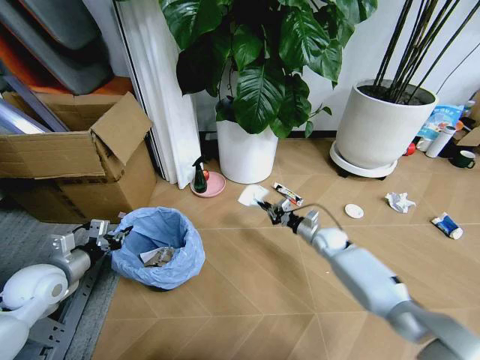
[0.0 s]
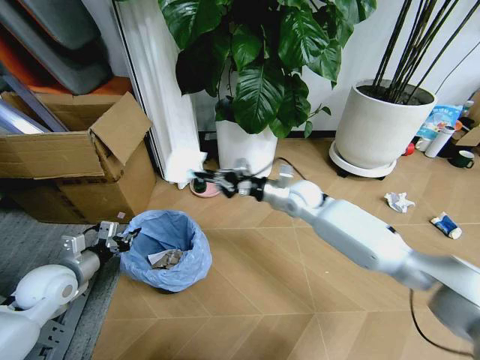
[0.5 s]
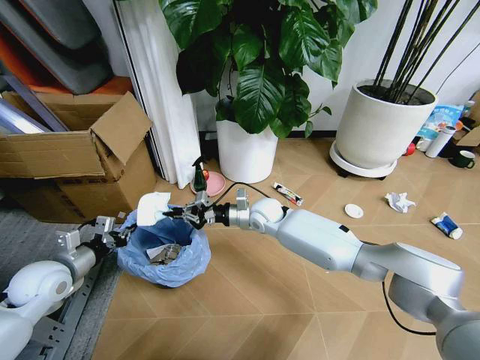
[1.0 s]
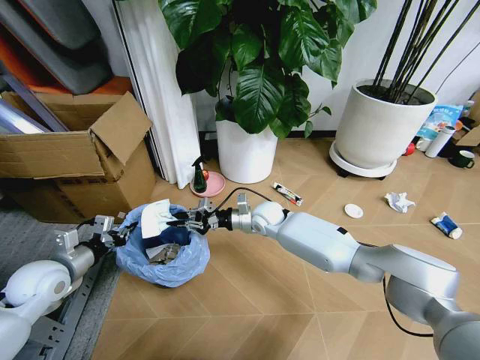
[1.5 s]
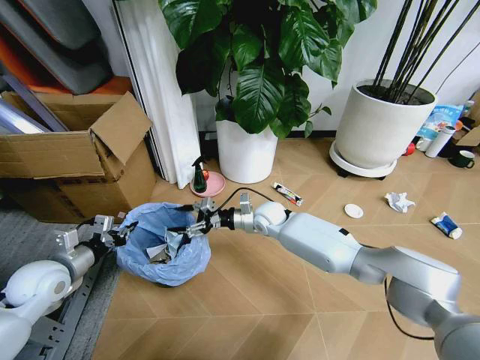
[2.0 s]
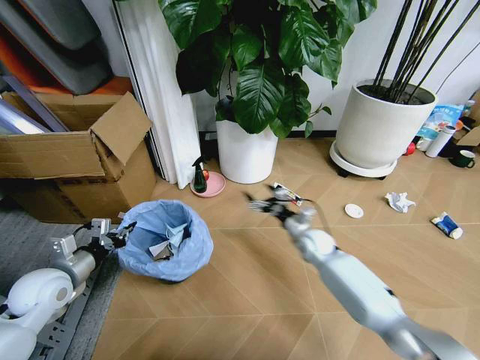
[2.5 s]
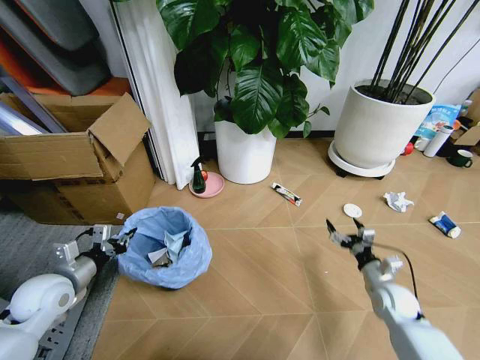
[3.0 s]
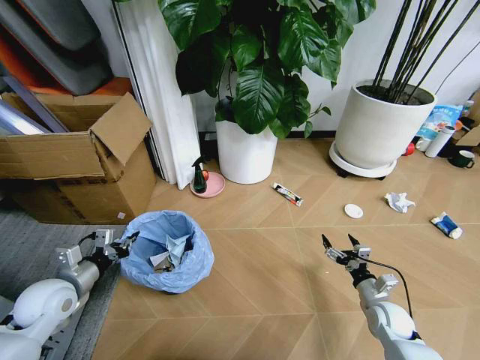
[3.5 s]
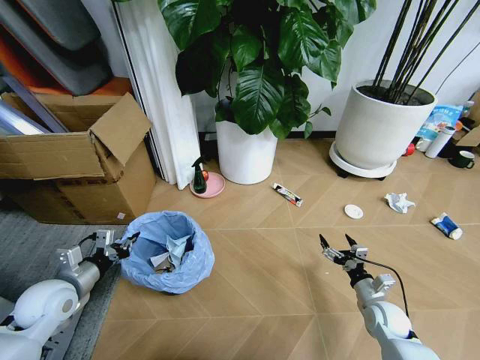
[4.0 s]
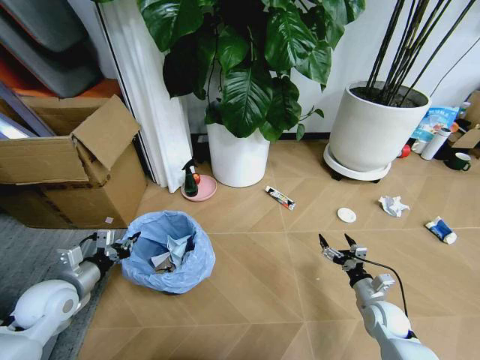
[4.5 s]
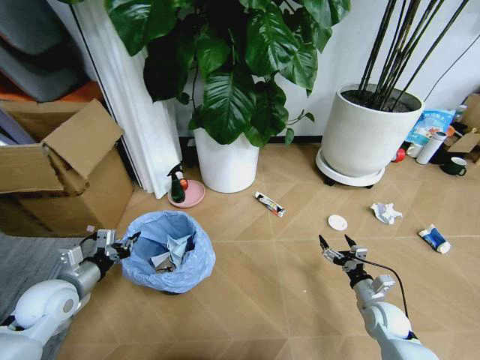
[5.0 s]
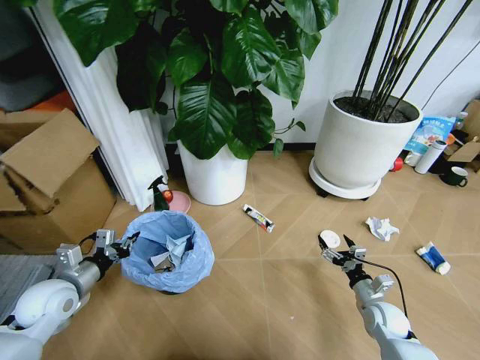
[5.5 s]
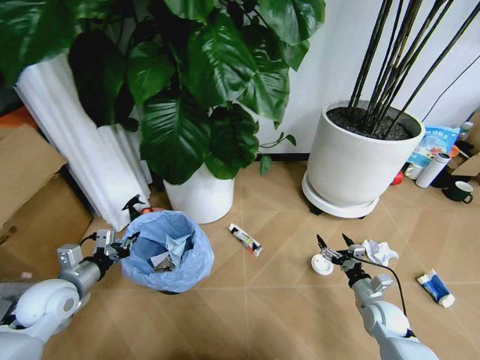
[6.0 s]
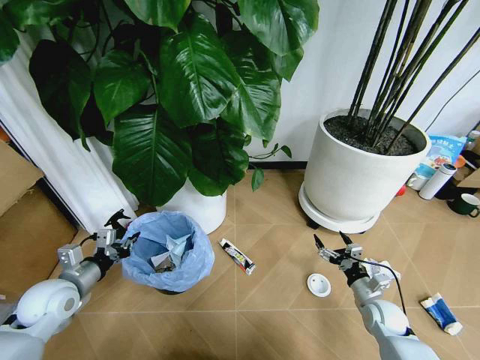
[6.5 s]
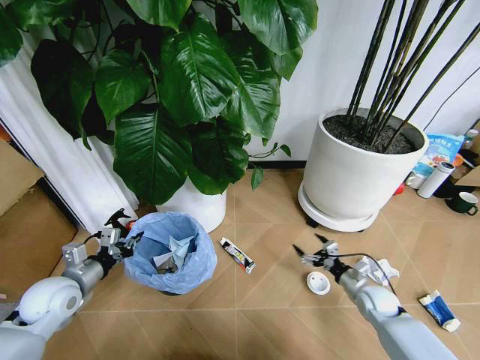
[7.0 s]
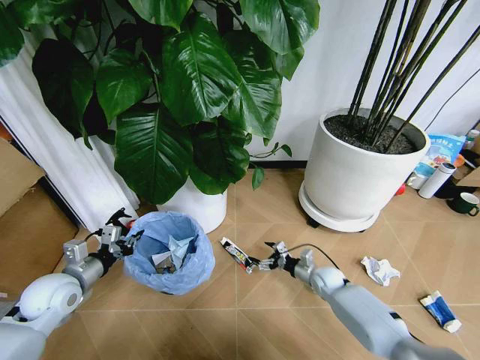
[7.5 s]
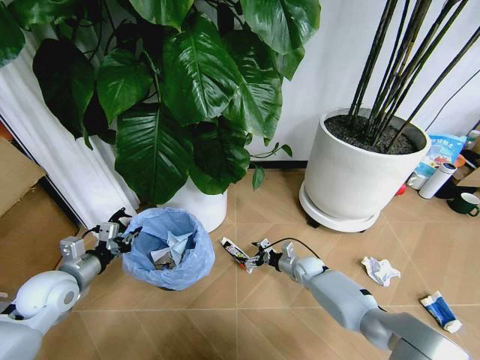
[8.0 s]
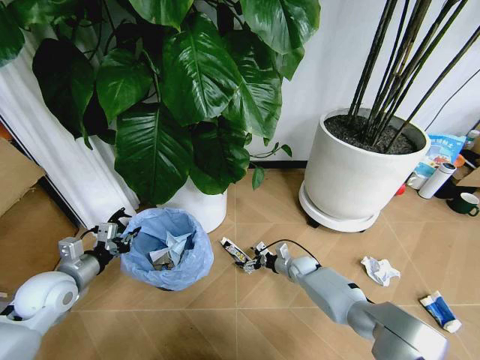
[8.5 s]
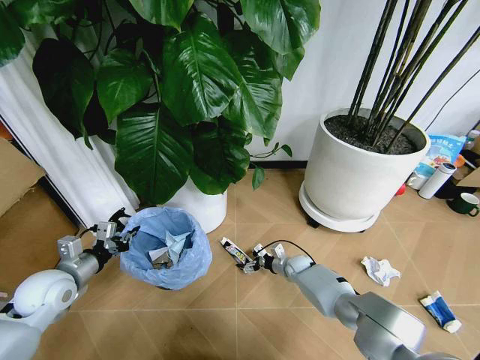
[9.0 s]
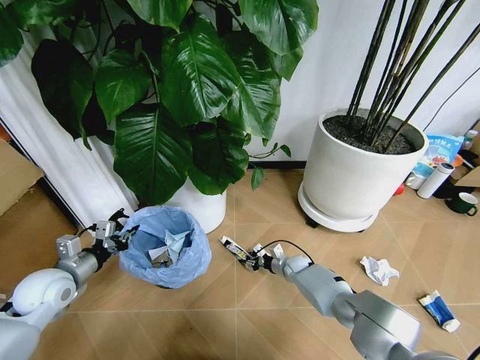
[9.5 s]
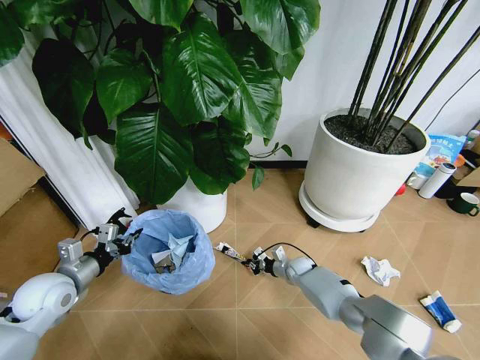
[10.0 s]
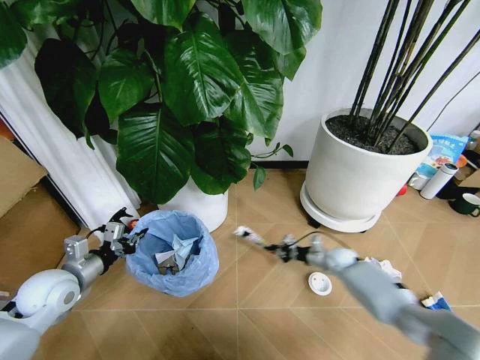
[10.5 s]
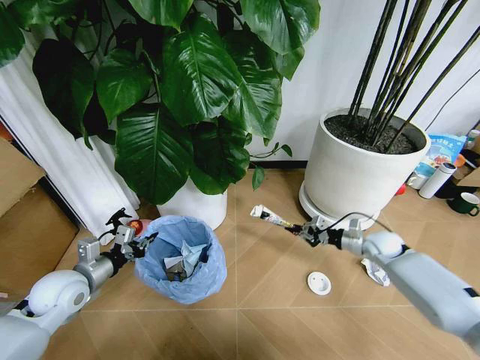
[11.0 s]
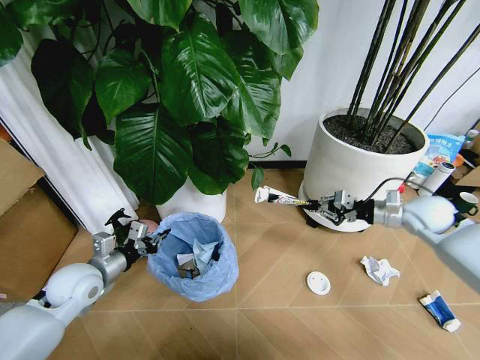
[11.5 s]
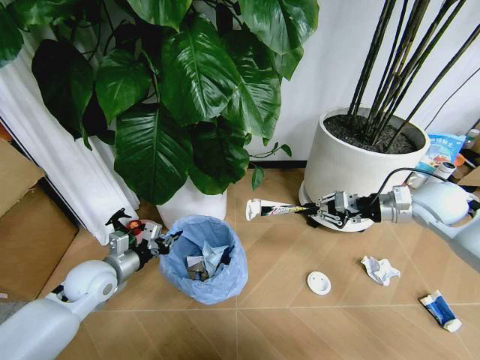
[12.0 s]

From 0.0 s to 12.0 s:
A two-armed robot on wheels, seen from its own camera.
Task of the whole recording: Pick up the trash bin and place the garbage on the floor into it.
From 0.0 s to 2.0 s: The right gripper goes about 20 cm to the left and upward, and opens.
From 2.0 s to 4.0 s: The right gripper heads to the right, backward and downward, covering about 40 cm.
From 6.0 s to 8.0 s: The right gripper goes approximately 20 cm forward and to the left.
From 8.0 s to 10.0 s: The right gripper closes.
From 10.0 s to 12.0 s: The right gripper heads upward and to the right, covering approximately 40 cm. Meanwhile the left gripper heads to the right, covering about 5 cm.

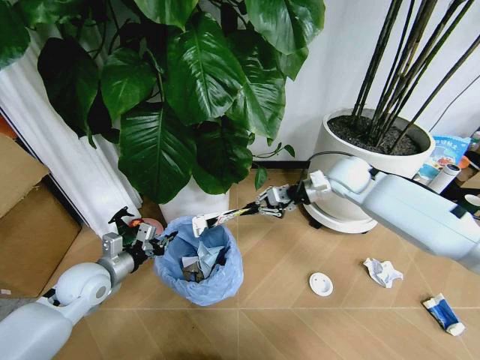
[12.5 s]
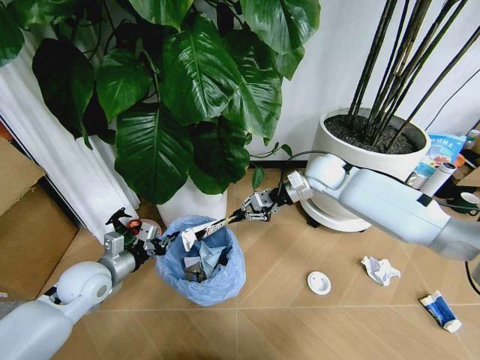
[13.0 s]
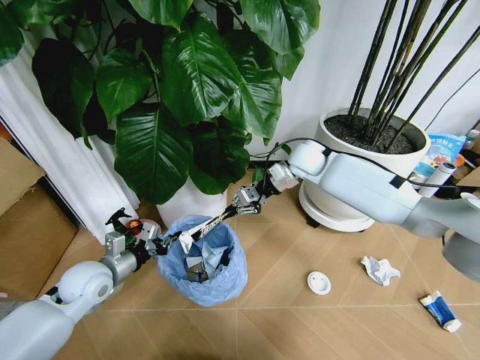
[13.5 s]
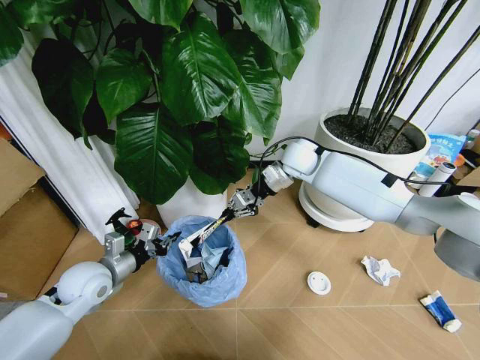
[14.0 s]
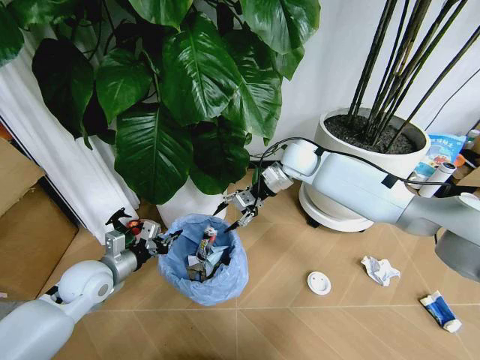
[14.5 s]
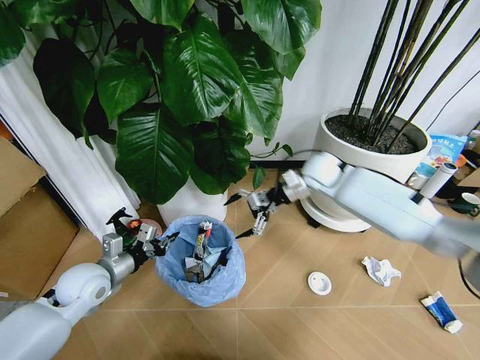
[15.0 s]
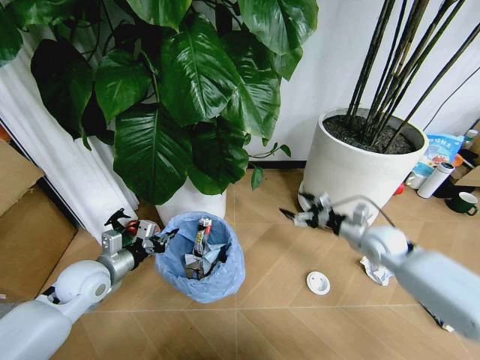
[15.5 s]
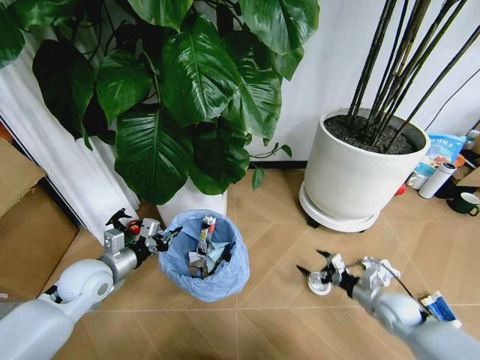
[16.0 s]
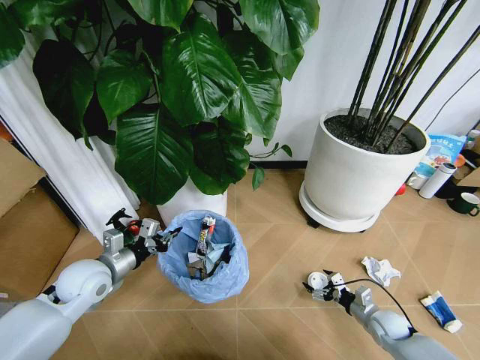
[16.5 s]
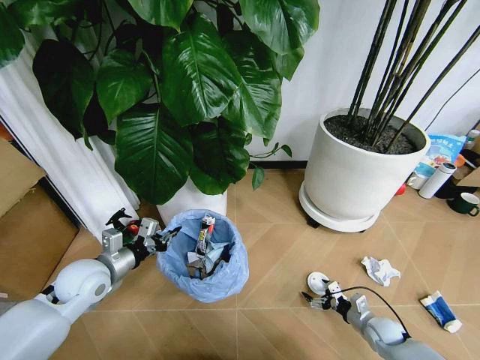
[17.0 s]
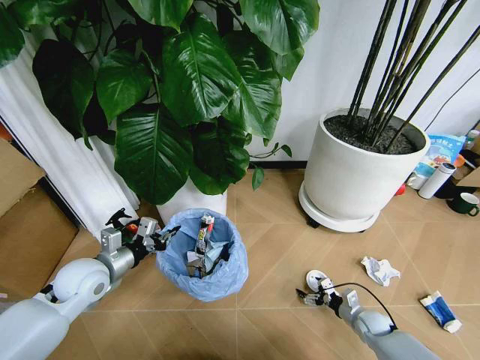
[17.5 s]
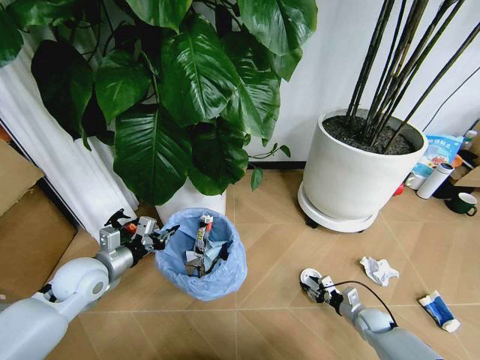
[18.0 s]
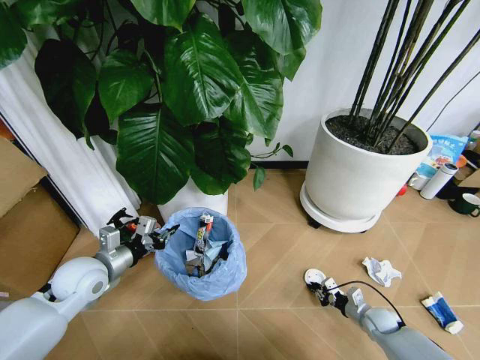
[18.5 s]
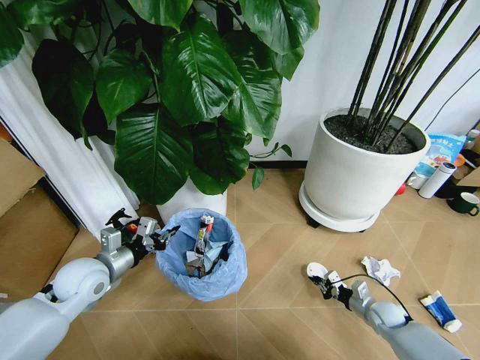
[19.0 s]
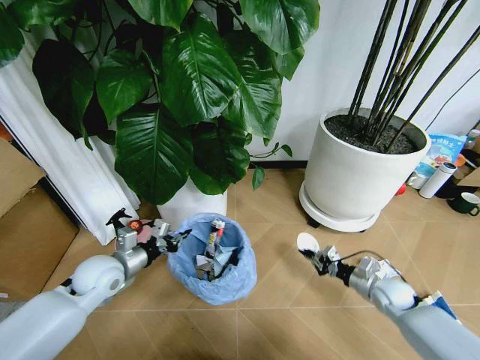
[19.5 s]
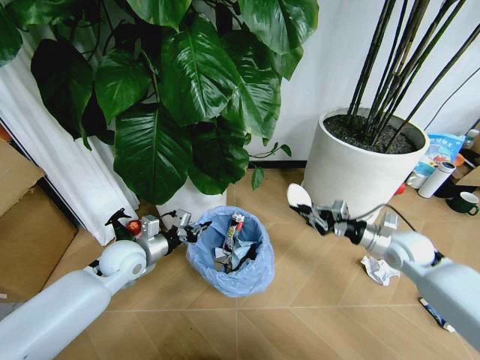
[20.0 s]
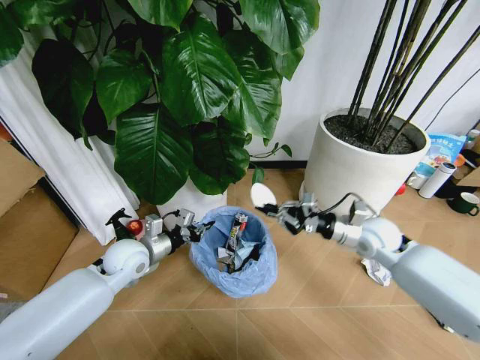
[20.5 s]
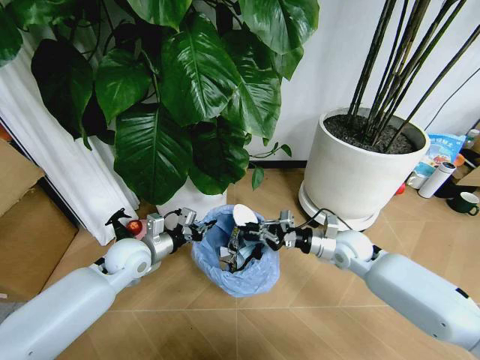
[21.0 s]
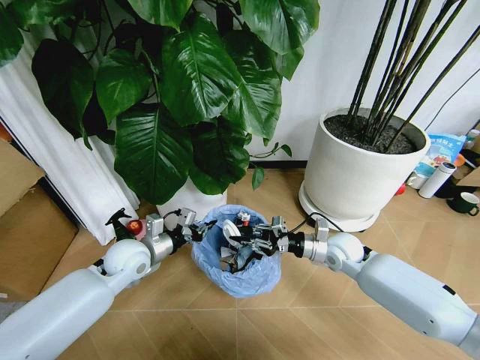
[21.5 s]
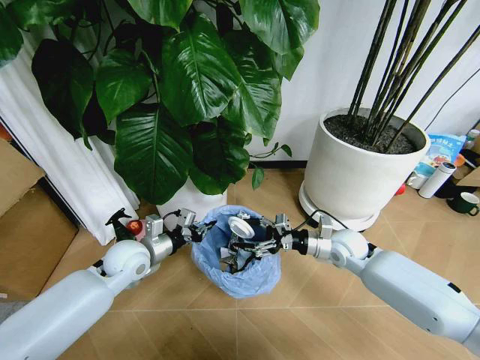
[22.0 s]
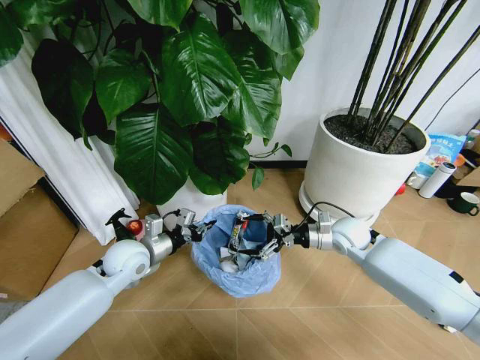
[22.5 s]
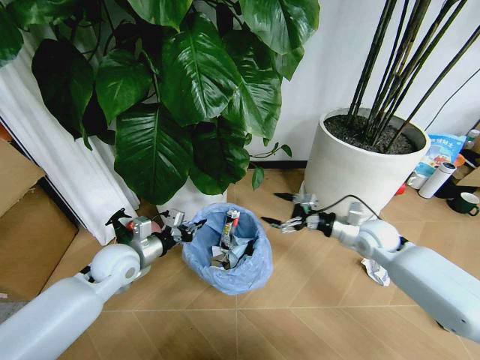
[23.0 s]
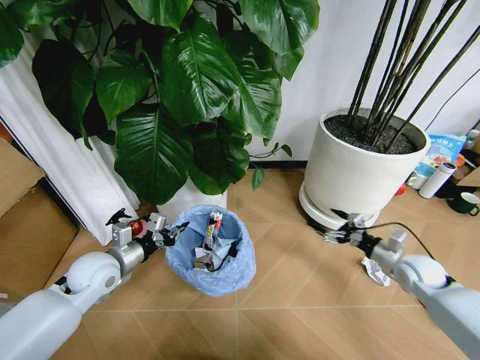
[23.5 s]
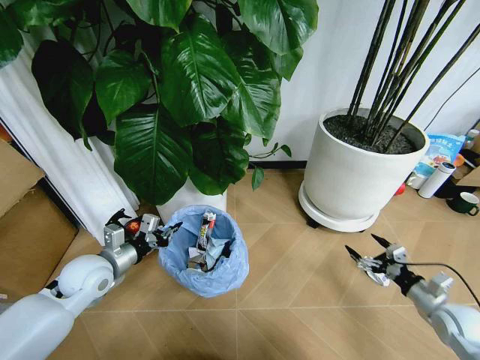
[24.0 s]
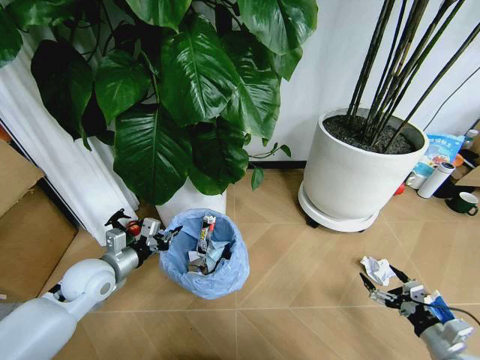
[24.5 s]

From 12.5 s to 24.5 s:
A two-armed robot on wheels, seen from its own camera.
Task of the whole recording: Pick up the trash bin and place the garbage on the floor into it.
From 12.5 s to 14.5 s: The right gripper shifts some 10 cm to the left and forward, and opens its fingers.
From 14.5 s to 16.5 s: The right gripper travels downward, backward and to the right by approximately 50 cm, and opens its fingers.
From 16.5 s to 18.5 s: The right gripper closes its fingers.
From 18.5 s to 20.5 s: The left gripper is displaced to the right and forward by approximately 10 cm; the right gripper is displaced upward by some 30 cm.
From 20.5 s to 22.5 s: The right gripper moves approximately 5 cm, and opens its fingers.
From 22.5 s to 24.5 s: The right gripper goes approximately 35 cm backward, to the right and downward, while the left gripper travels to the left by roughly 5 cm.

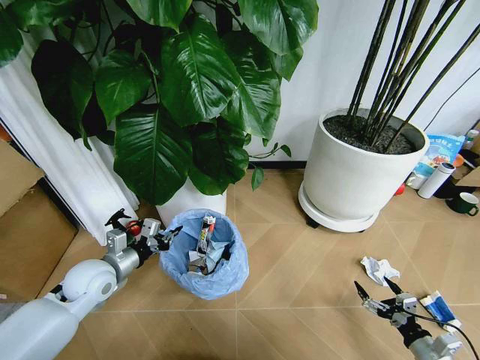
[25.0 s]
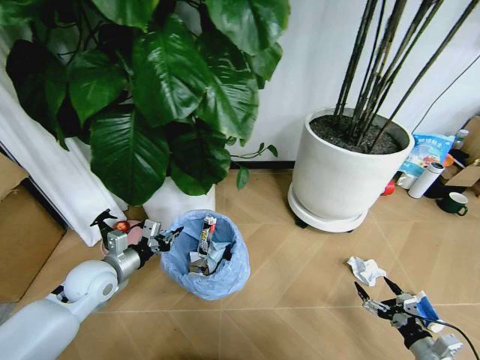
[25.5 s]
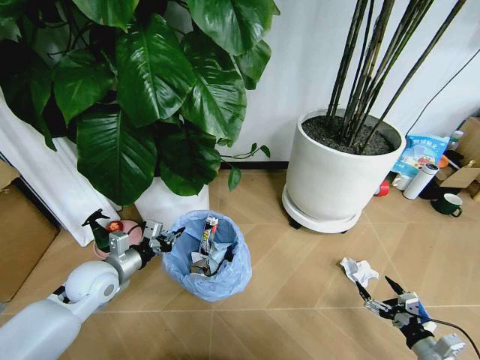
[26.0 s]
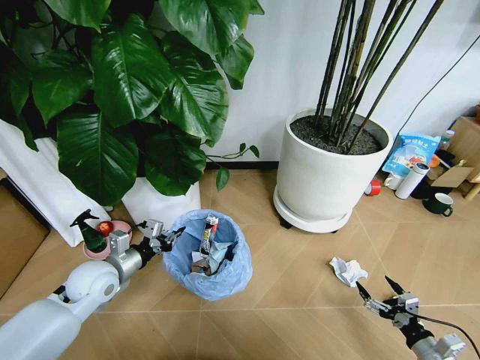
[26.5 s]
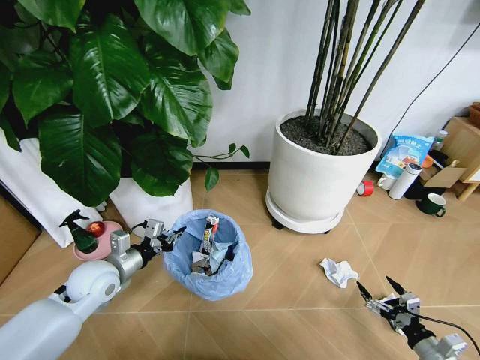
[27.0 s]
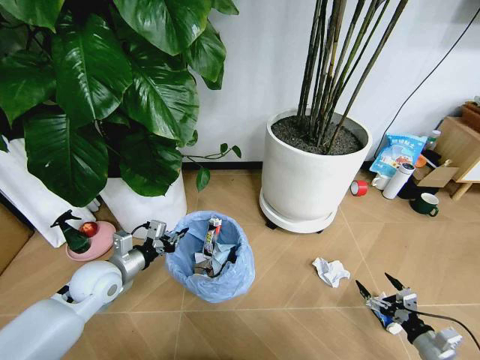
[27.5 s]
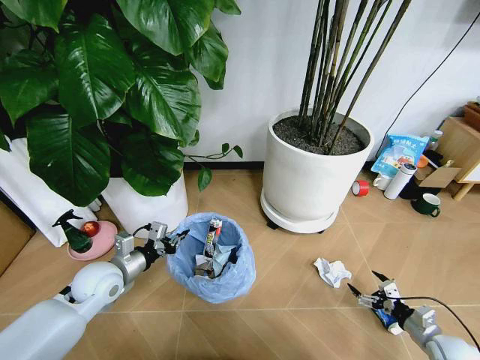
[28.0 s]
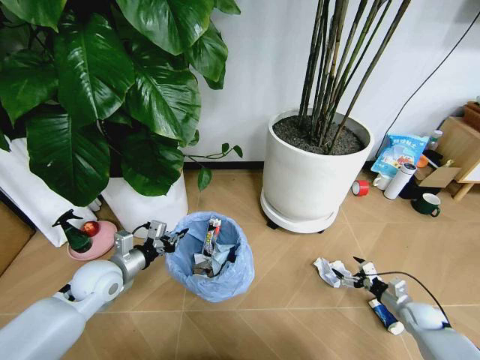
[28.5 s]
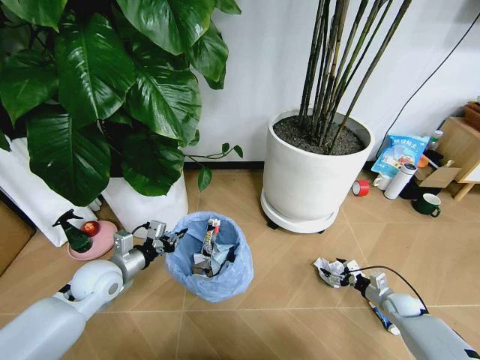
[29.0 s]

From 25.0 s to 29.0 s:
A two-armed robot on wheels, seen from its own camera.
Task of the whole recording: Pick up the trash bin and place the garbage on the floor into it.
From 27.0 s to 29.0 s: The right gripper heads forward, covering roughly 20 cm.
